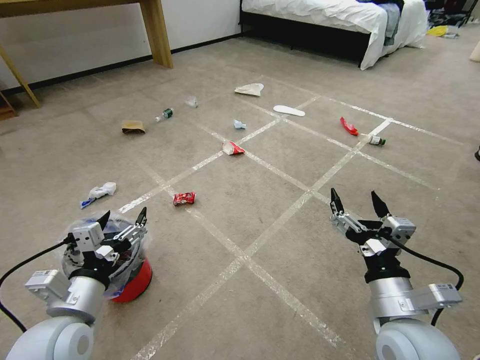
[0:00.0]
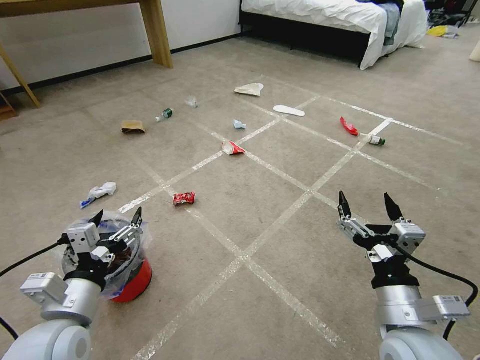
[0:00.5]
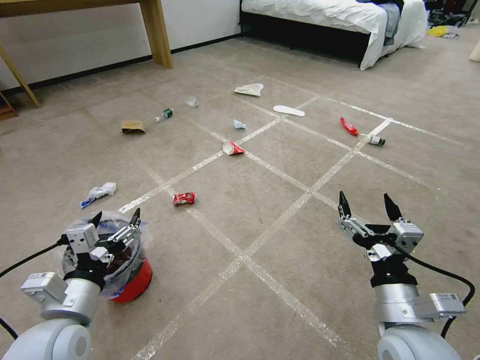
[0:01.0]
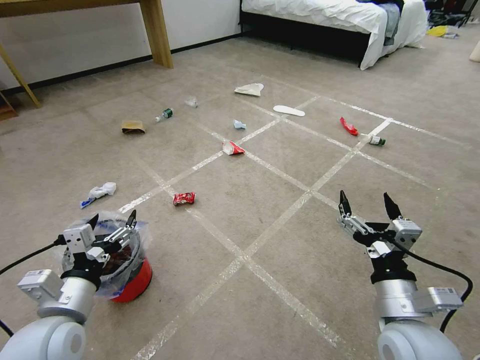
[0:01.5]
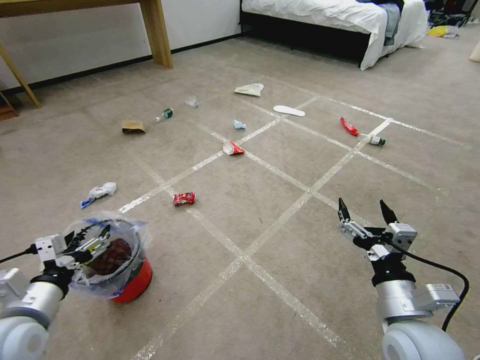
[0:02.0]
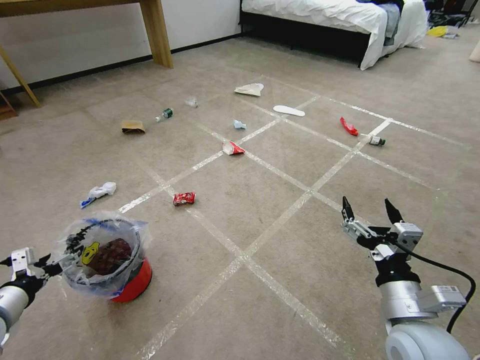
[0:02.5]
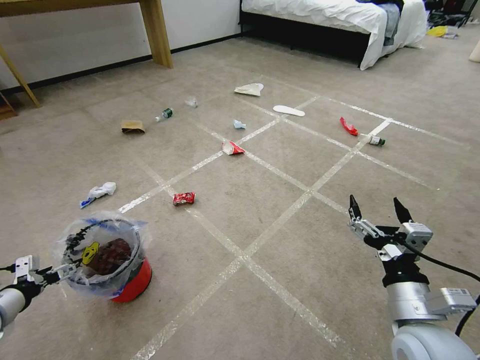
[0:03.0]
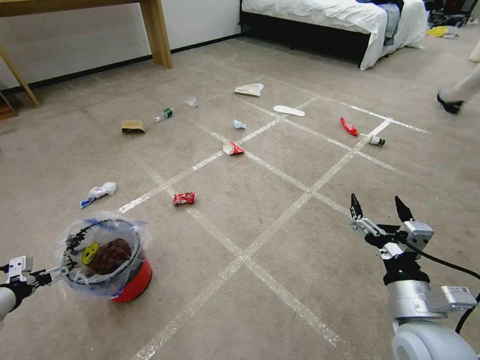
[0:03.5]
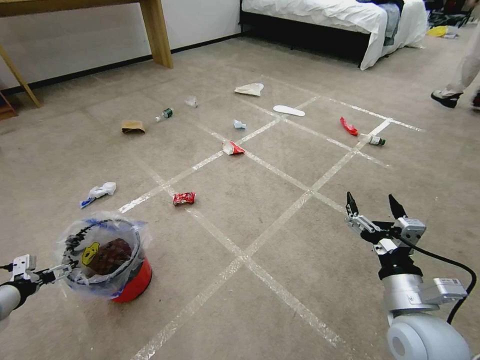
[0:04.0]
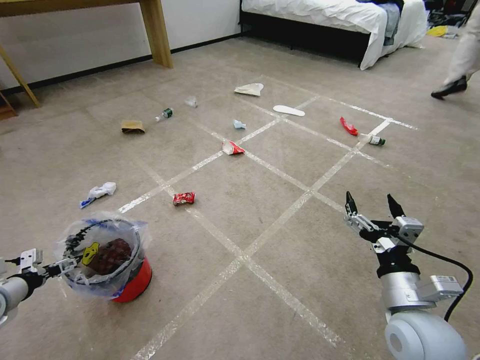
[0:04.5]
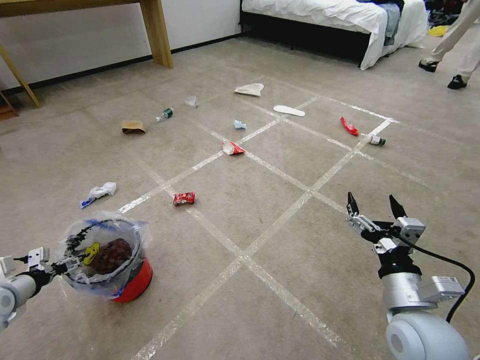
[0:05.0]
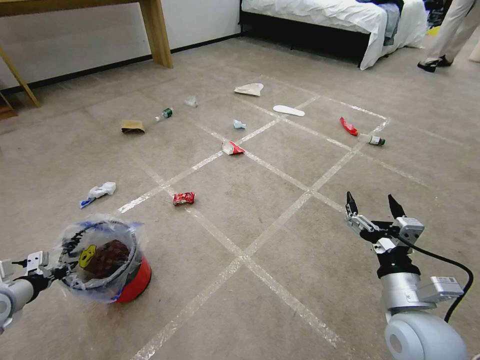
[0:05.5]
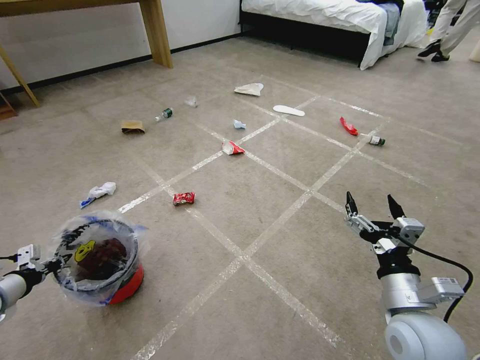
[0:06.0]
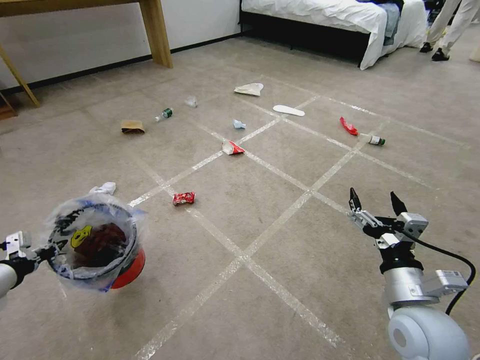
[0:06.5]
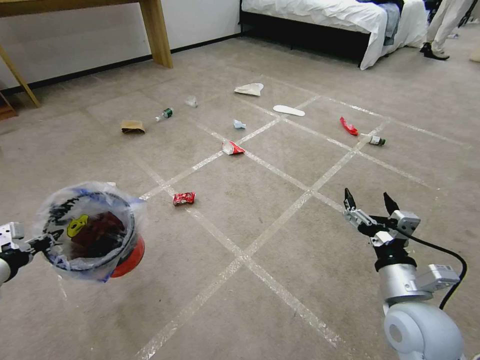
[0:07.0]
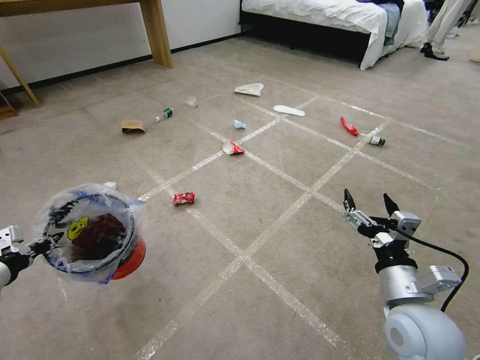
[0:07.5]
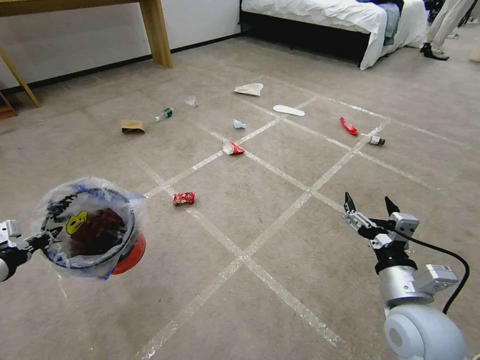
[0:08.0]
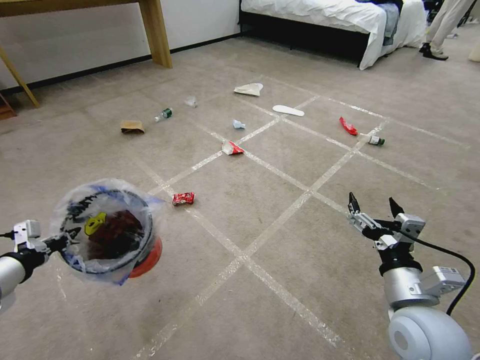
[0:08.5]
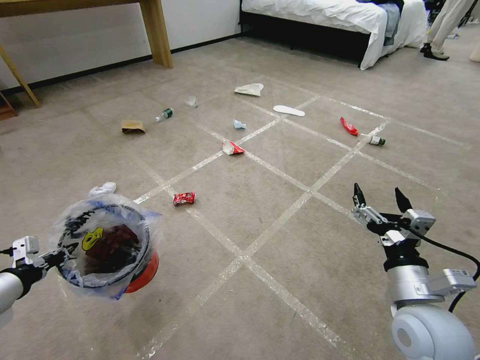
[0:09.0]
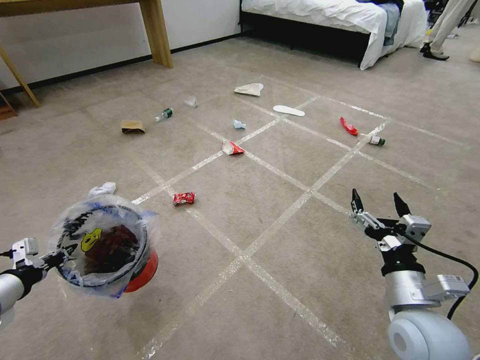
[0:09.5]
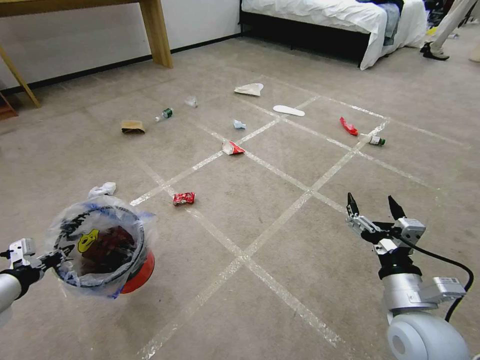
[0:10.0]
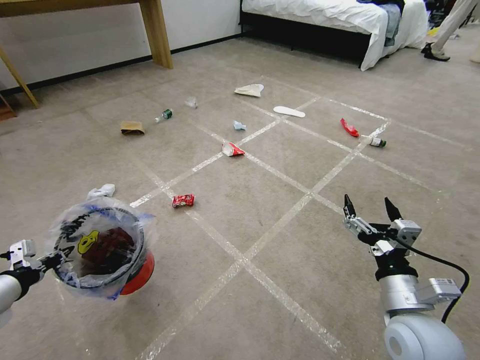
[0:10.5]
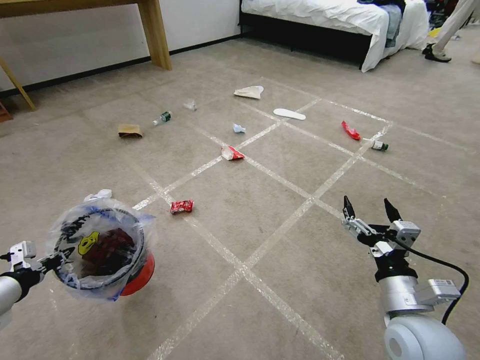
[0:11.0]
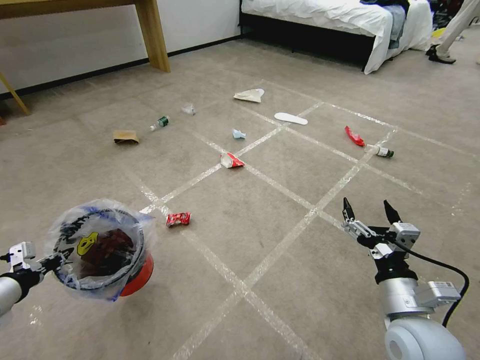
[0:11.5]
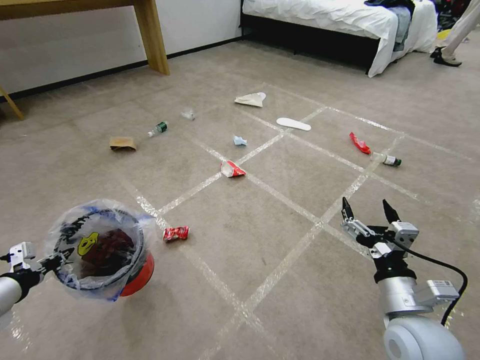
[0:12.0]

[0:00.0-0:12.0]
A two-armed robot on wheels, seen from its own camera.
Task of the whole recording: Pick up the trash bin and place the garbage on the floor into it.
0:02.0 to 0:04.0: The left gripper heads to the left, covering some 20 cm.
0:04.0 to 0:06.0: The left gripper closes.
0:06.0 to 0:08.0: The left gripper goes roughly 10 cm upward.
0:08.0 to 0:10.0: There are only small adjustments of the grippers.
0:10.0 to 0:12.0: Both grippers stay put.

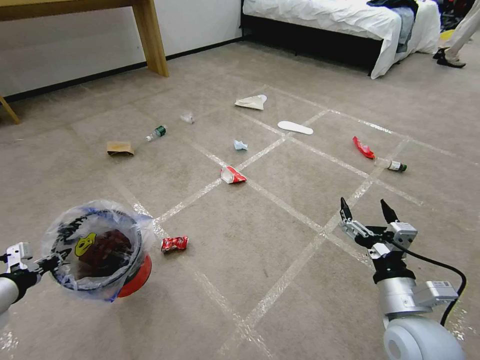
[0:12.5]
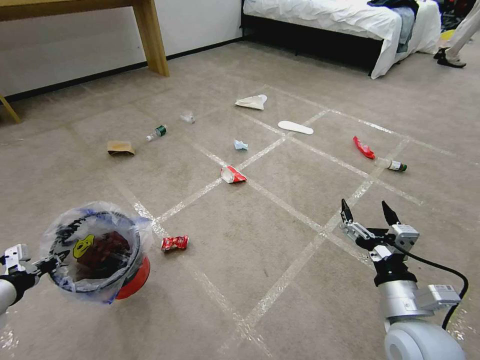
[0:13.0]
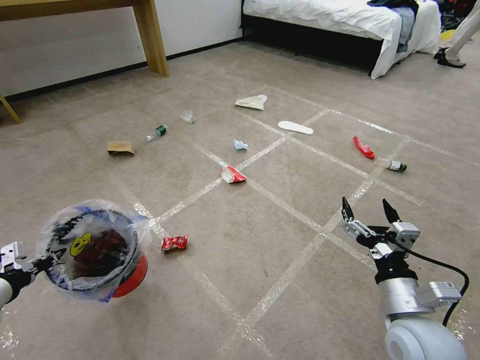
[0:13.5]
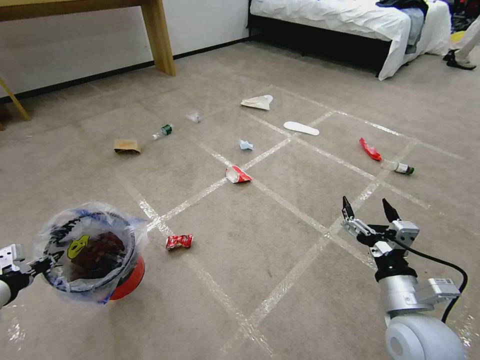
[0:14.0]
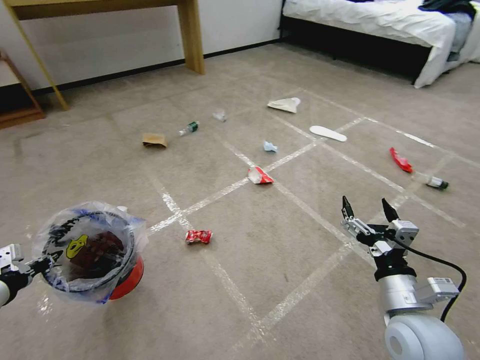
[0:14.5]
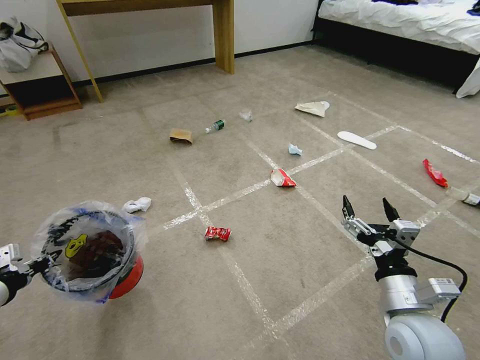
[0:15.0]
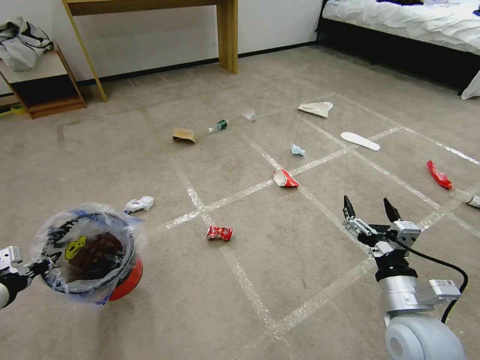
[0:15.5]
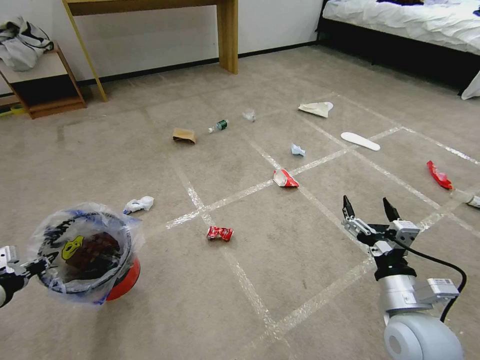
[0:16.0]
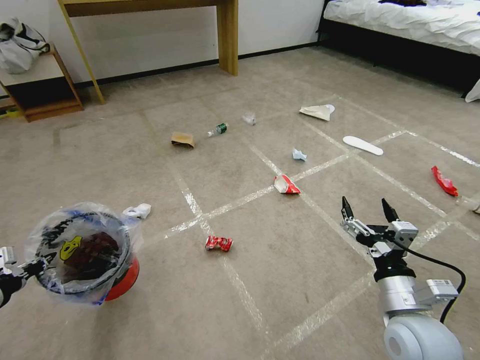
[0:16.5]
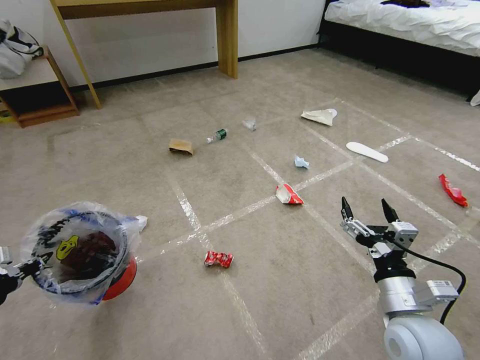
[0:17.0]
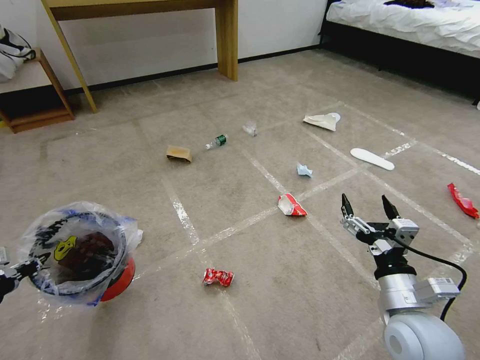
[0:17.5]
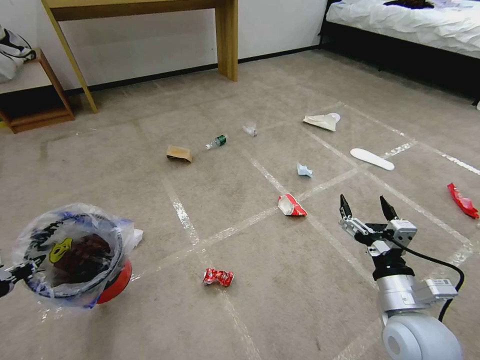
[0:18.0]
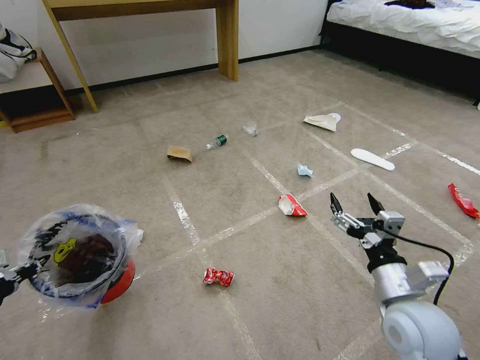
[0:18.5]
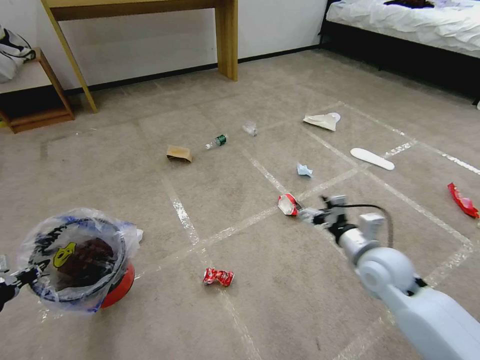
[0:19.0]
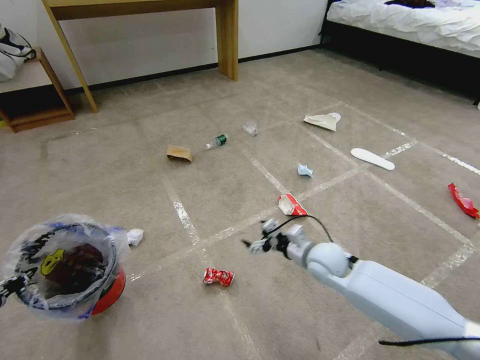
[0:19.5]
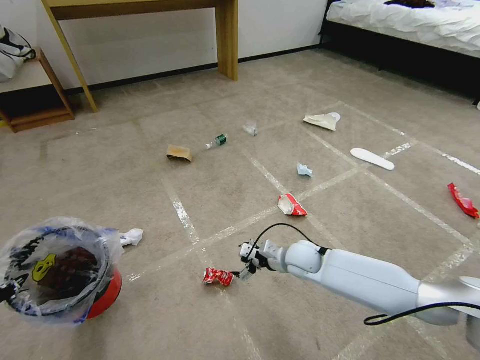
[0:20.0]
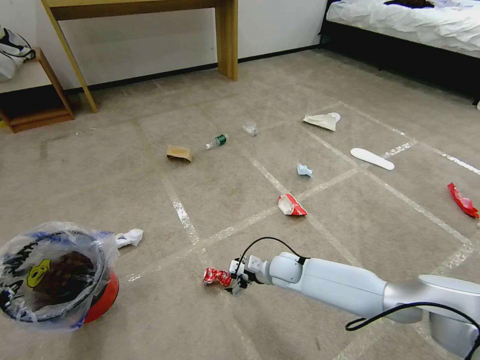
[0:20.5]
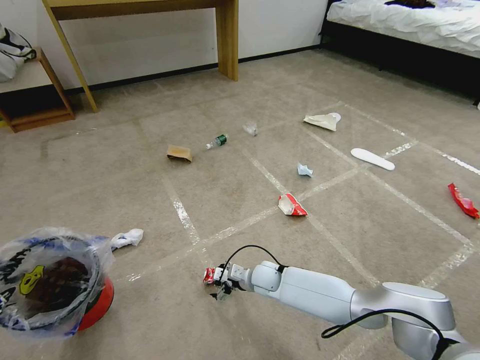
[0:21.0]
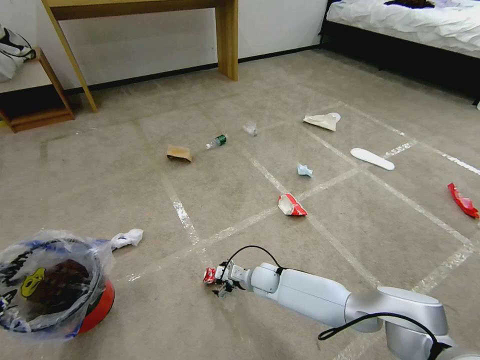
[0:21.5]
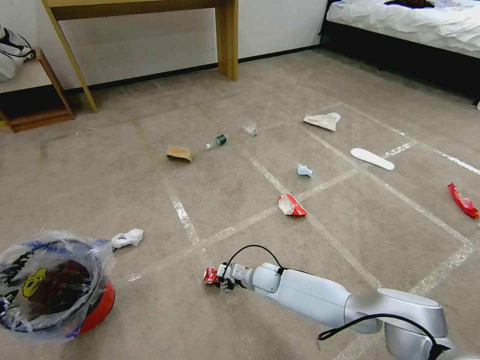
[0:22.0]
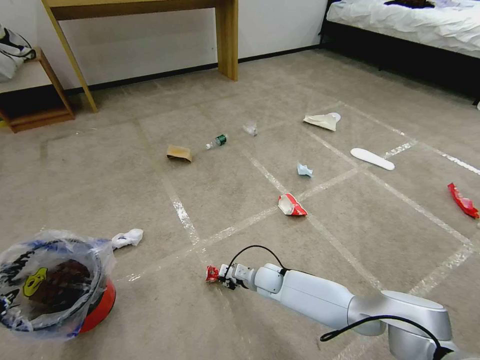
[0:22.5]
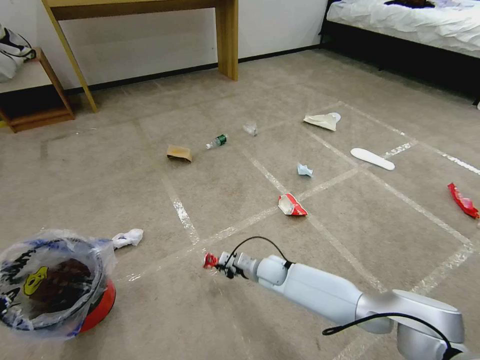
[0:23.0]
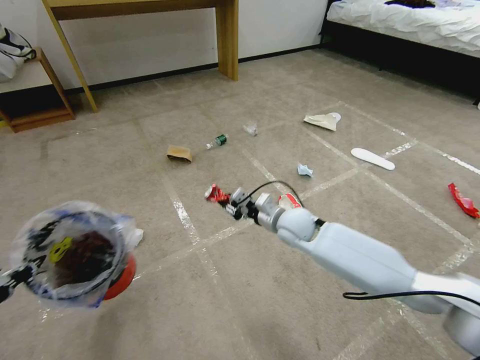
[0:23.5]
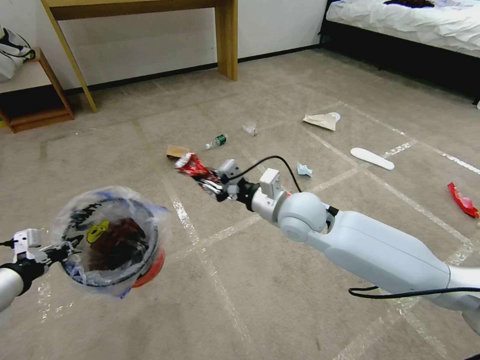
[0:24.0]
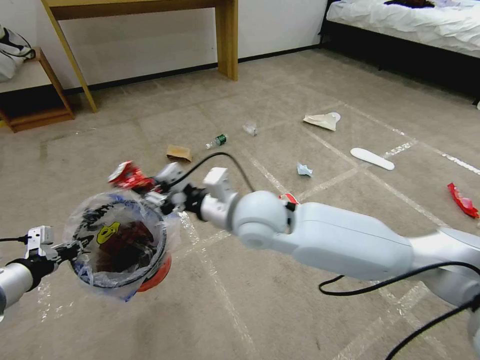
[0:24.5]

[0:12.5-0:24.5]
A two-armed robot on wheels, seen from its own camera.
Task of the whole recording: Pick up the trash bin and place the garbage on the floor into it.
0:18.5 to 0:20.5: The left gripper heads backward, covering approximately 5 cm; the right gripper is displaced forward, downward and to the left by roughly 30 cm.
0:20.5 to 0:22.5: The right gripper goes about 5 cm downward, and closes up.
0:22.5 to 0:24.5: The right gripper shifts some 35 cm upward. The left gripper travels forward, to the right and upward by some 15 cm.

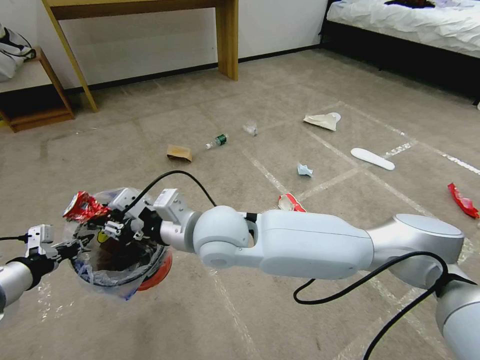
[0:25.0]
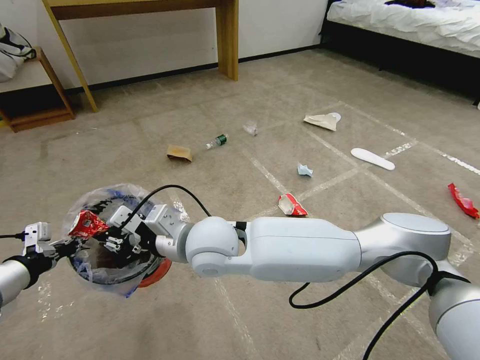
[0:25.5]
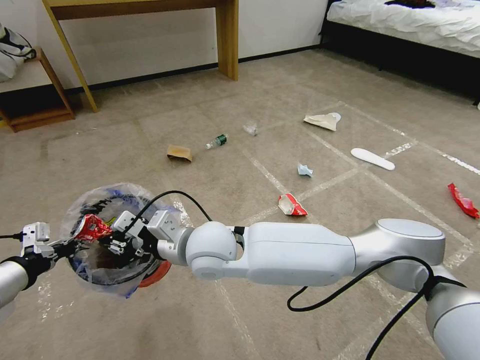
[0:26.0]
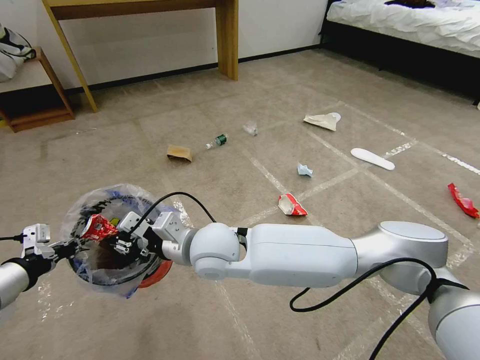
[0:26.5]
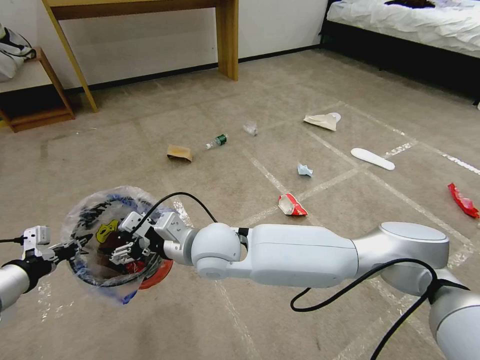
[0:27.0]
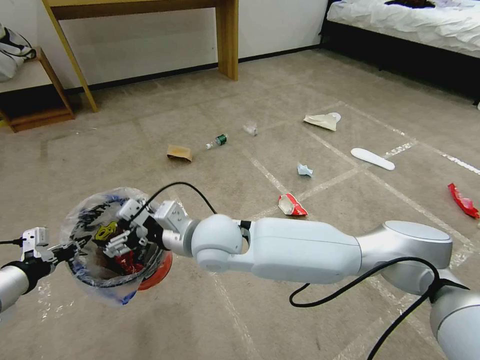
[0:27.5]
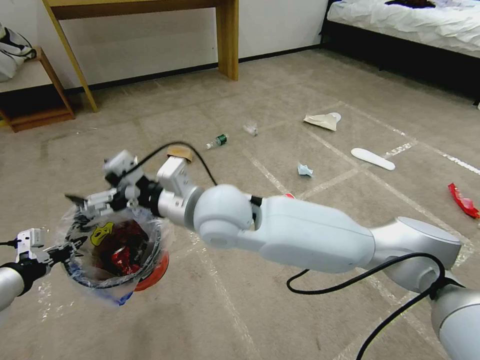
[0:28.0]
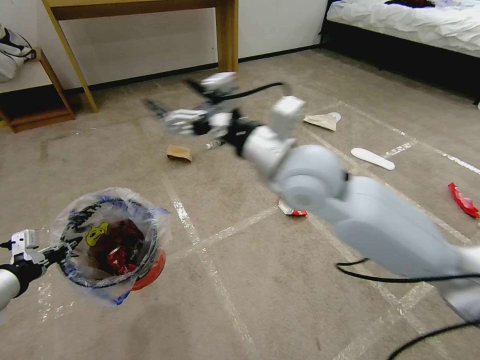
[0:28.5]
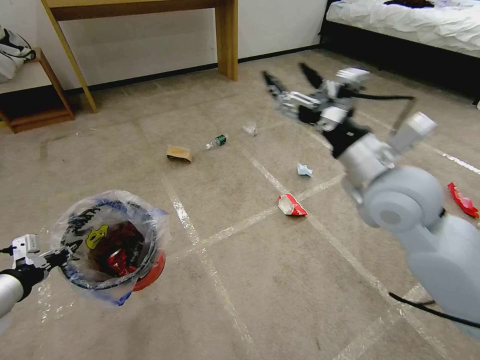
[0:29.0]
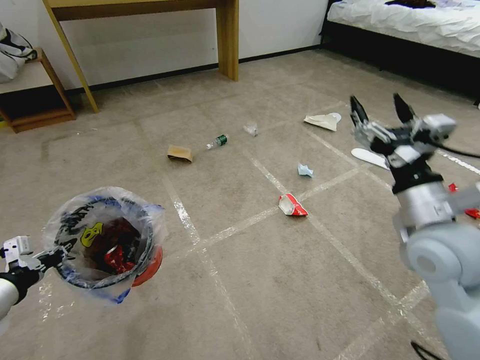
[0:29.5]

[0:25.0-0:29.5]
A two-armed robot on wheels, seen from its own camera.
Task of the whole recording: Pick up the trash bin and place the garbage on the floor into it.
0:25.0 to 0:27.0: The right gripper moves downward, roughly 5 cm, and opens.
0:27.0 to 0:29.5: The right gripper shifts roughly 35 cm to the right.
